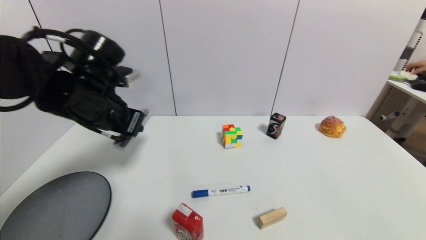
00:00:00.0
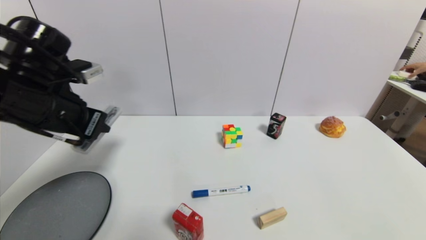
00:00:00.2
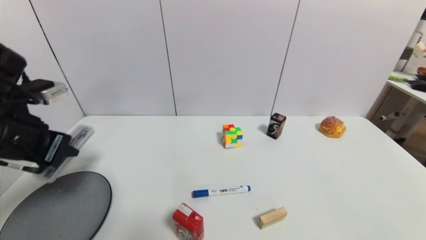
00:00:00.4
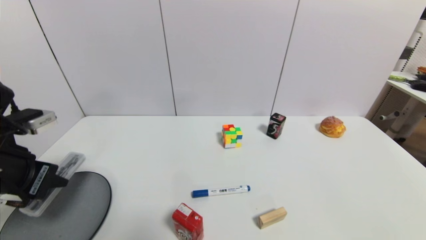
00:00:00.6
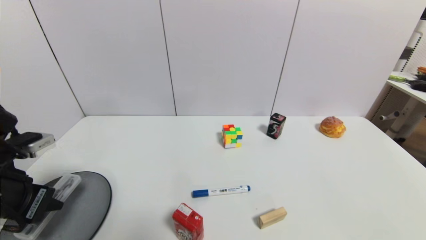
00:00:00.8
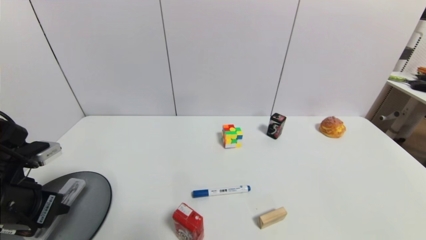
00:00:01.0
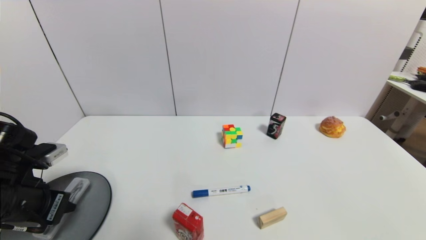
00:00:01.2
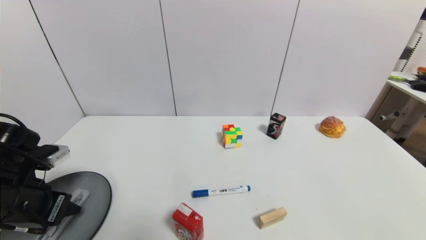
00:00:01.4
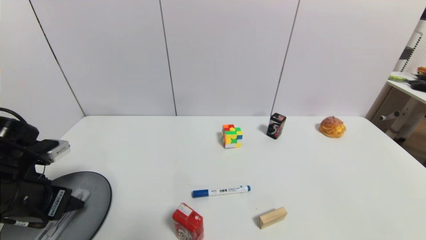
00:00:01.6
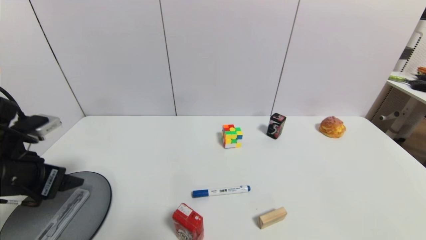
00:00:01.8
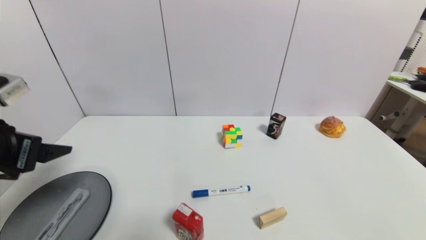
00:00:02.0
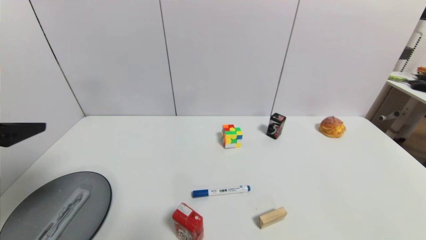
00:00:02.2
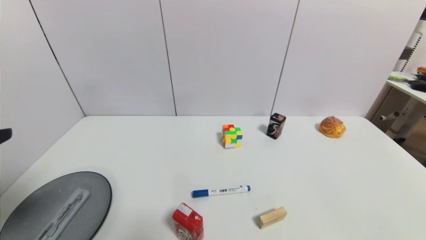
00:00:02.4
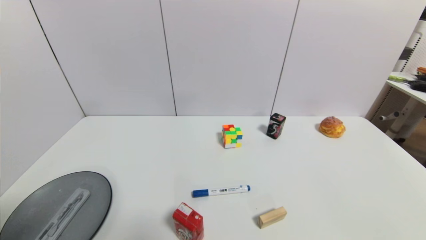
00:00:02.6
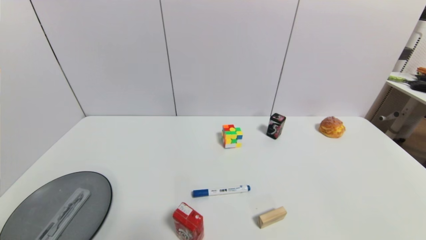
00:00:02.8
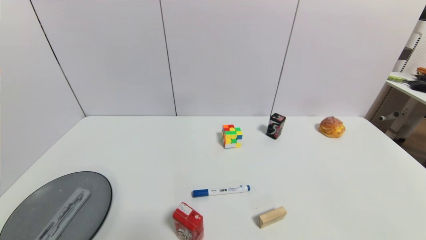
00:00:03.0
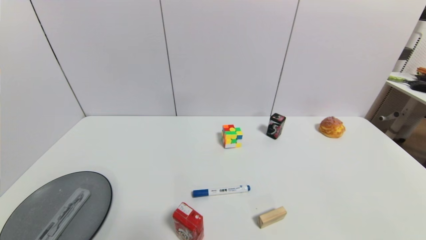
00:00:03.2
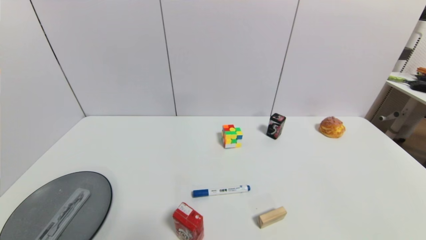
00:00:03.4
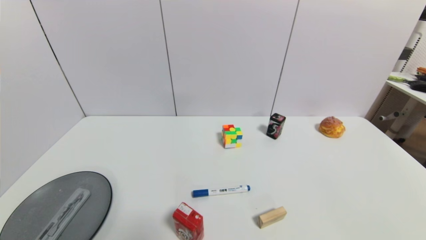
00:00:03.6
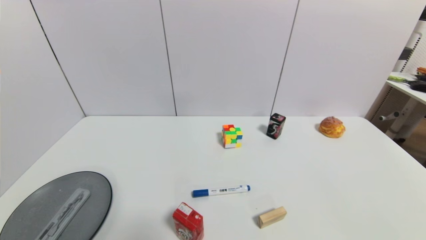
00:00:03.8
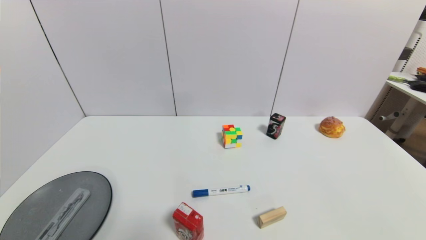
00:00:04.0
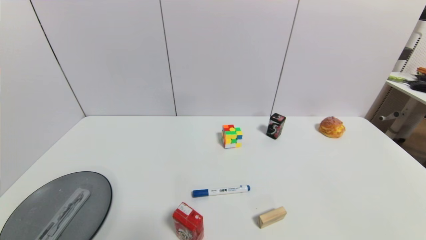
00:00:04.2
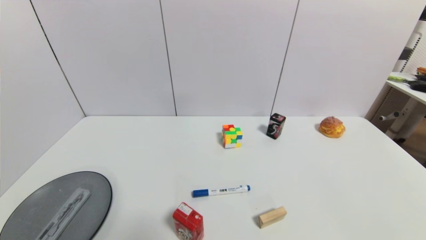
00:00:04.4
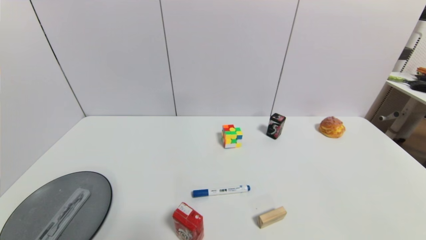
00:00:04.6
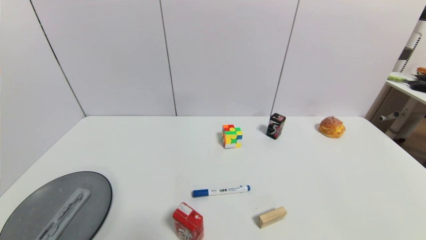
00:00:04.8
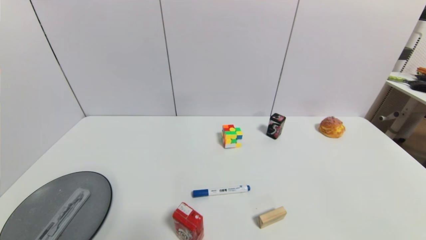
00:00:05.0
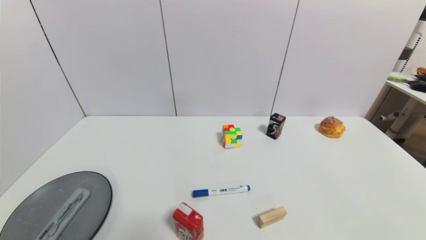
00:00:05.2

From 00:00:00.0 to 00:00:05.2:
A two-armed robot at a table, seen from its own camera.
Task of the whole recording: use a gripper to pick the target object and place on the gray plate.
Step, from 00:00:00.0 to 00:00:01.6: Place the compasses on the gray plate with the left gripper.
From 00:00:00.0 to 00:00:01.8: The left gripper shifts about 15 cm to the left, backward and downward, and opens.
From 00:00:01.8 to 00:00:03.4: The left gripper is displaced backward and downward by some 25 cm.

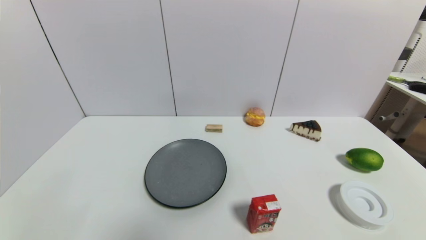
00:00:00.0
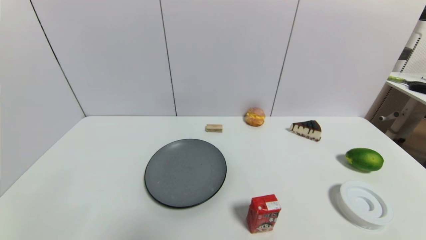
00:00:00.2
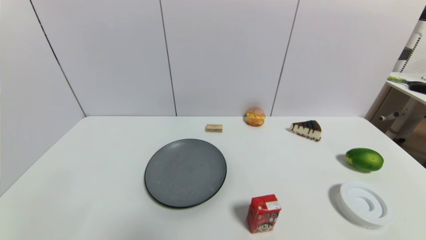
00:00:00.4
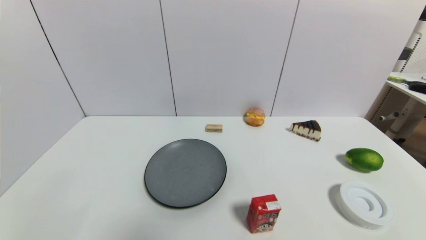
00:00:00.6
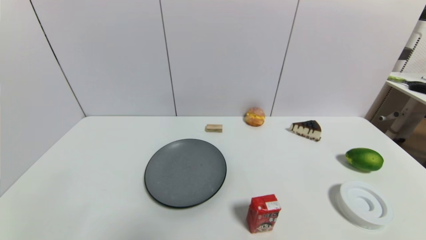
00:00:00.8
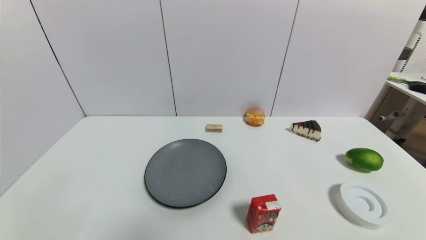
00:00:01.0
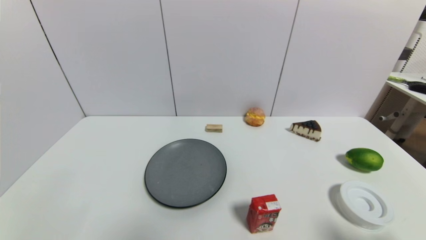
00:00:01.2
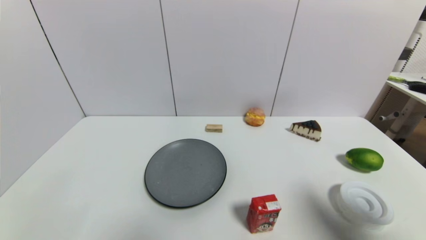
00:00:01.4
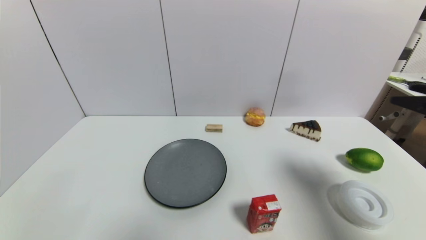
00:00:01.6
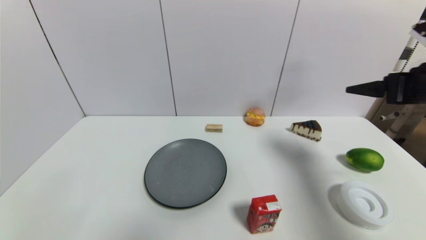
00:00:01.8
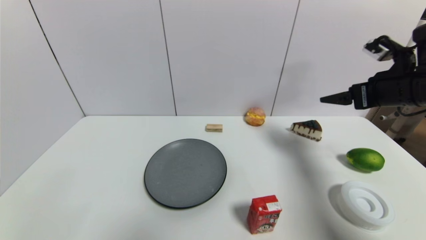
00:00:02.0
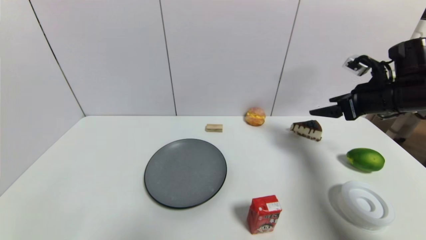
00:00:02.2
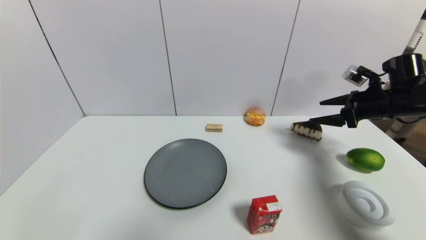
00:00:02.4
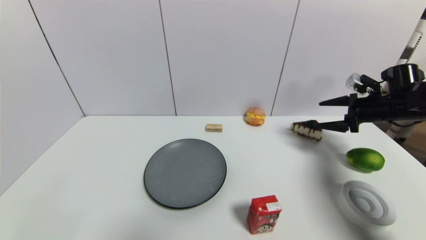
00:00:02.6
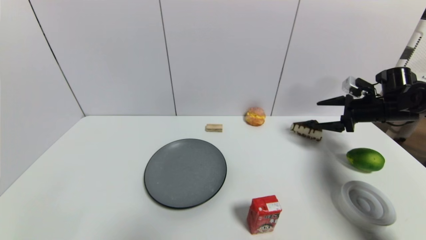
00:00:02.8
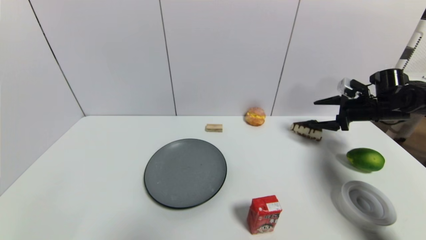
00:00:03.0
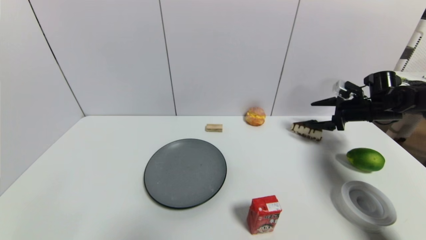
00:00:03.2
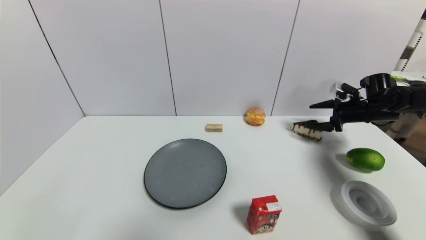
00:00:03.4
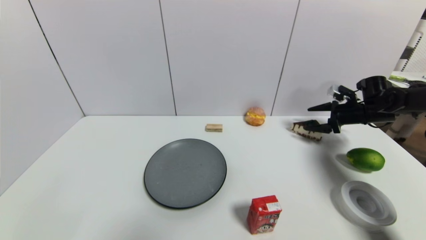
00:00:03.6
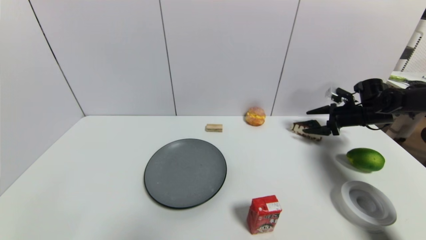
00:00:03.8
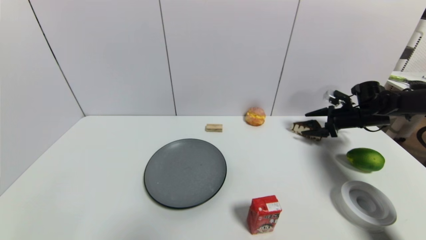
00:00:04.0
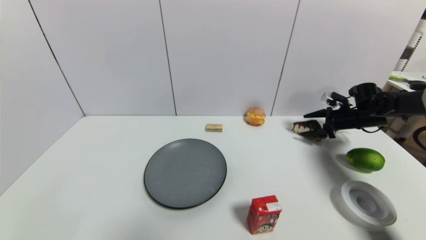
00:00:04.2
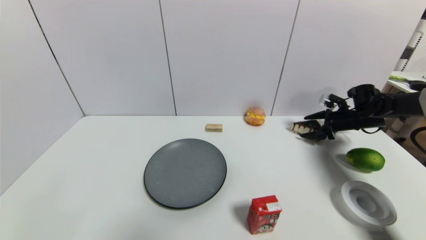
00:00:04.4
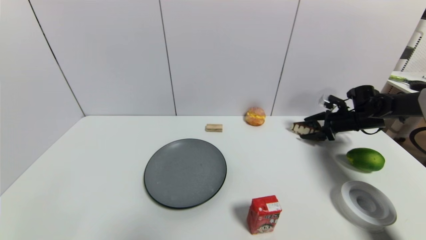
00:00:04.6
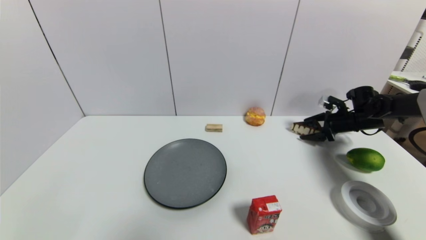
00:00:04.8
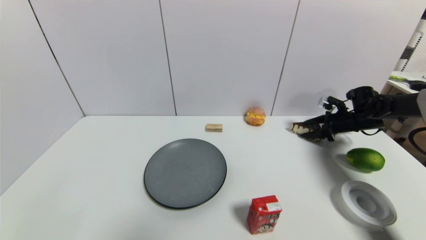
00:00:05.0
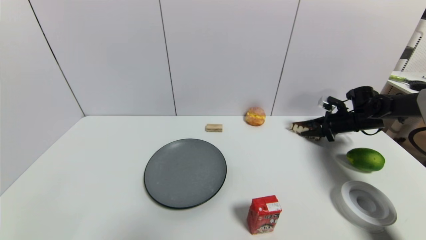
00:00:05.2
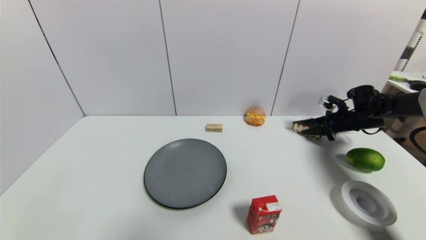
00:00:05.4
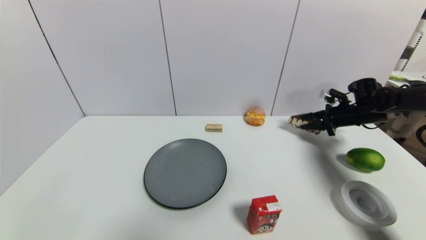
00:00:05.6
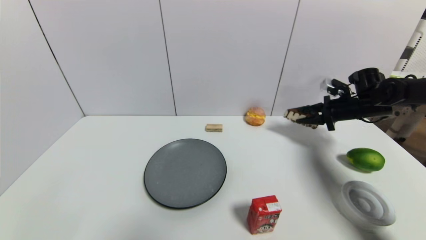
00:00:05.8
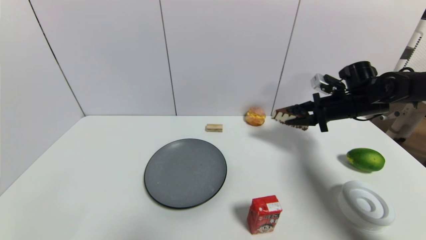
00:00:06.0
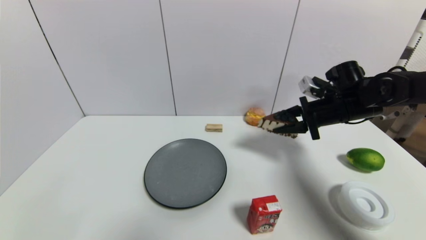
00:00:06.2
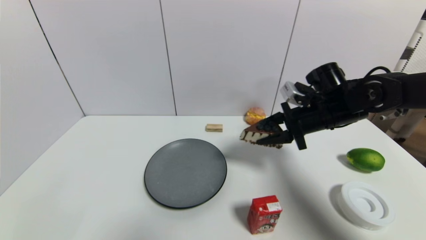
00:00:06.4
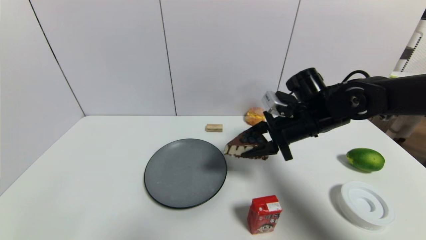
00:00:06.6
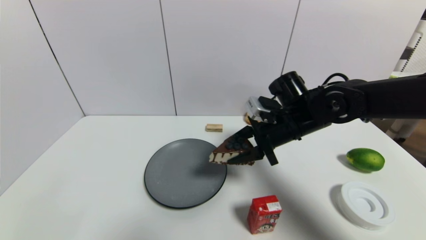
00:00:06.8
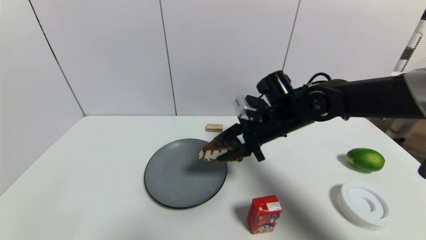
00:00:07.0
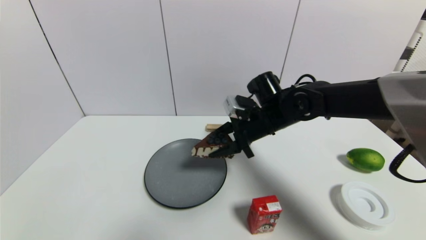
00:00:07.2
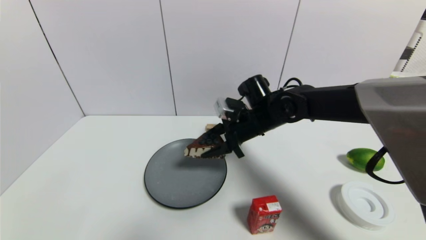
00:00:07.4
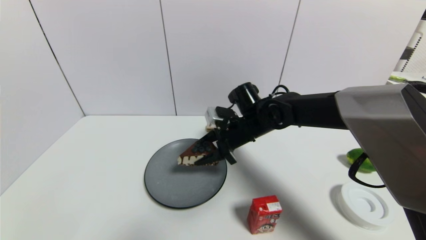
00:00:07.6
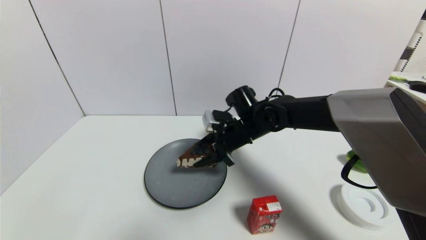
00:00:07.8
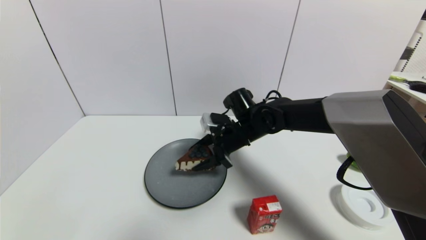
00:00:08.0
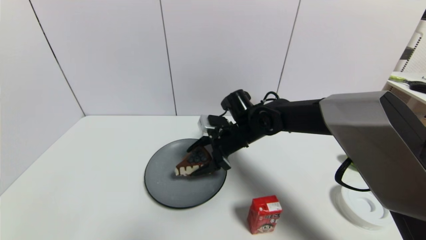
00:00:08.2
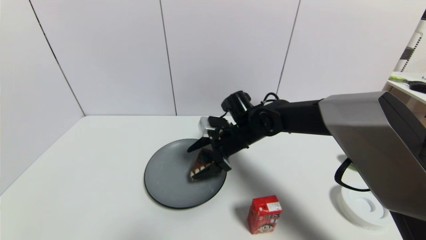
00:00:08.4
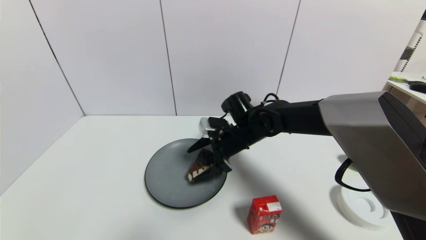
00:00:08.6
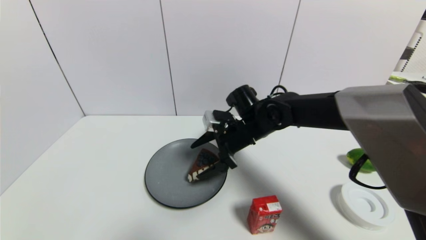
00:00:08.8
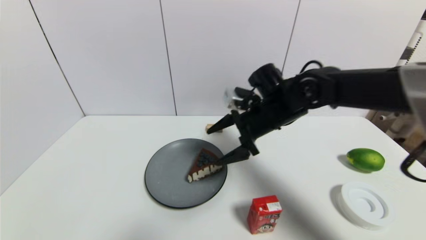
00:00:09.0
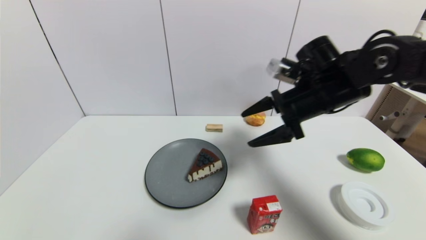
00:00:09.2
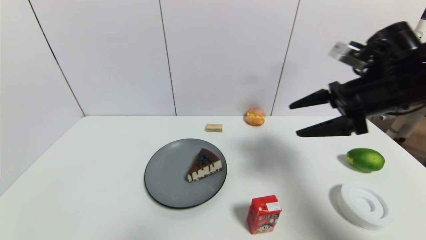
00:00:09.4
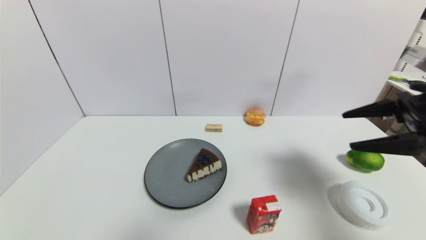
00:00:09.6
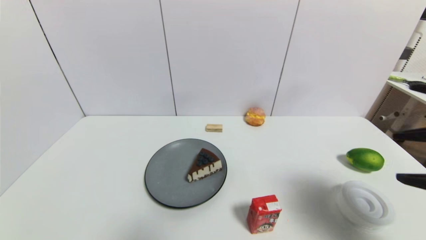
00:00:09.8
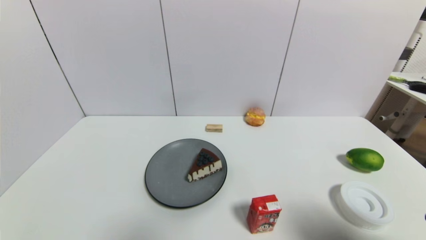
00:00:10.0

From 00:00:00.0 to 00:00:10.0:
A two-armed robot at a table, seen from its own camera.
Task of the whole recording: use a gripper to pick the target object and place on the gray plate.
Step, from 00:00:00.0 to 00:00:05.2: Grasp the chocolate cake with the right gripper.
Step, from 00:00:05.4 to 00:00:08.4: Place the chocolate cake on the gray plate with the right gripper.
From 00:00:00.0 to 00:00:01.4: The right gripper travels upward and forward by about 25 cm.
From 00:00:01.4 to 00:00:02.8: The right gripper moves forward, approximately 30 cm.
From 00:00:02.8 to 00:00:04.2: The right gripper is displaced downward and forward by approximately 10 cm.
From 00:00:04.2 to 00:00:05.8: The right gripper goes approximately 5 cm upward, and closes up.
From 00:00:05.8 to 00:00:07.2: The right gripper heads to the left, covering roughly 25 cm.
From 00:00:07.2 to 00:00:08.6: The right gripper moves some 5 cm, and opens.
From 00:00:08.6 to 00:00:10.0: The right gripper travels backward and to the right by some 40 cm.
